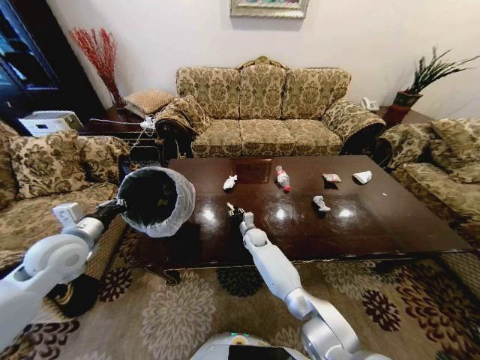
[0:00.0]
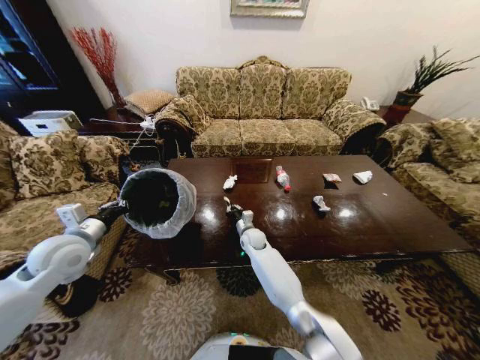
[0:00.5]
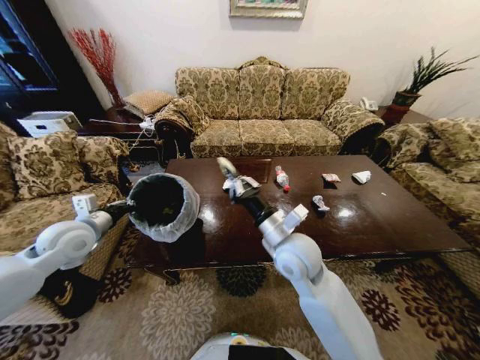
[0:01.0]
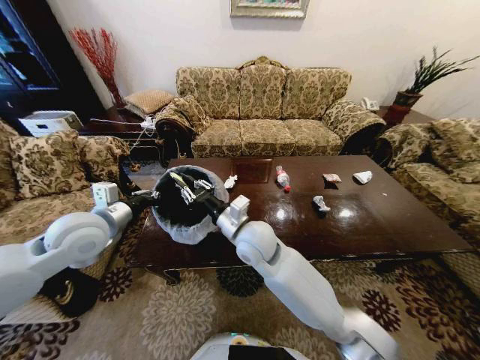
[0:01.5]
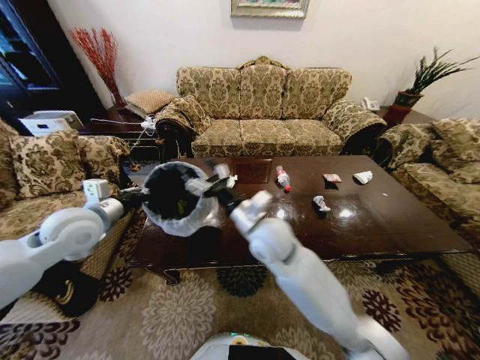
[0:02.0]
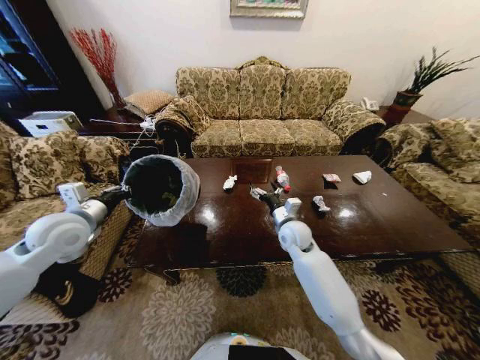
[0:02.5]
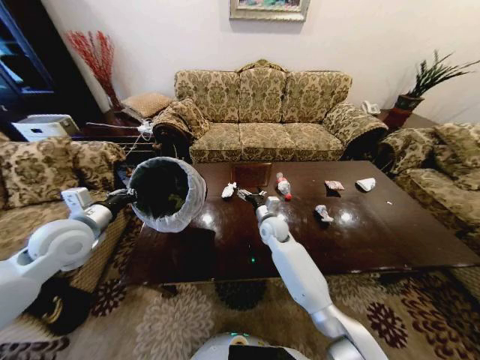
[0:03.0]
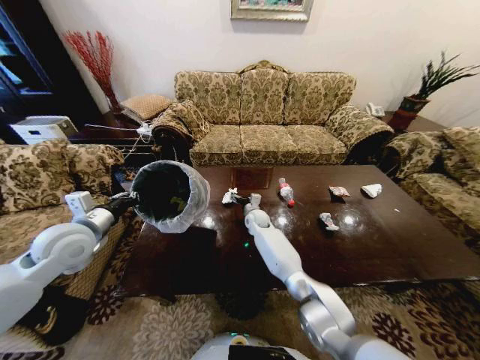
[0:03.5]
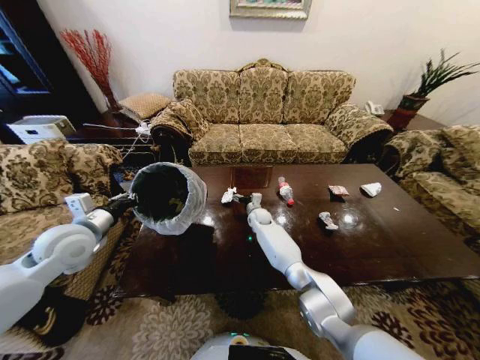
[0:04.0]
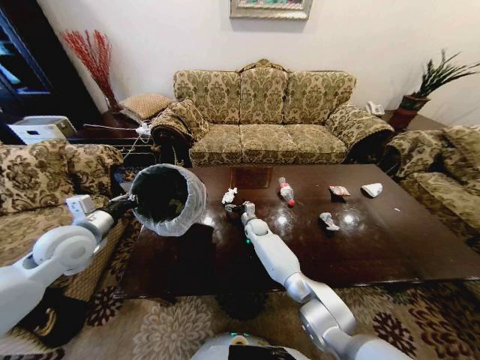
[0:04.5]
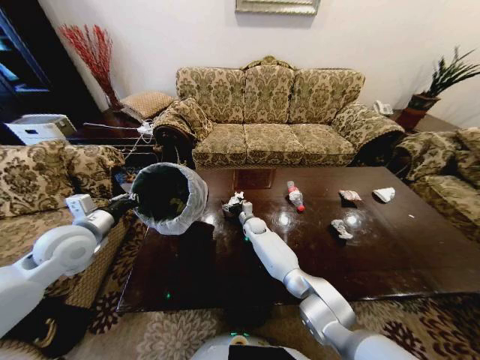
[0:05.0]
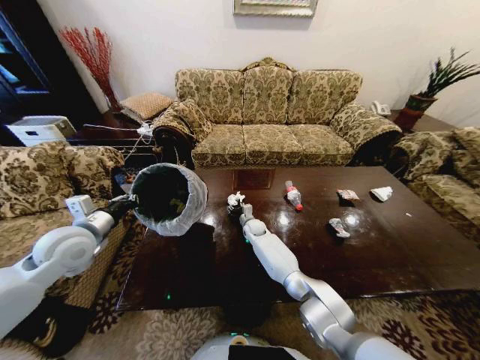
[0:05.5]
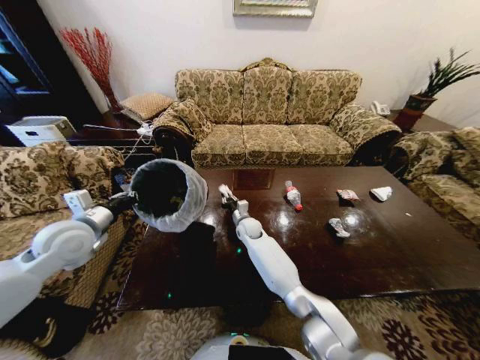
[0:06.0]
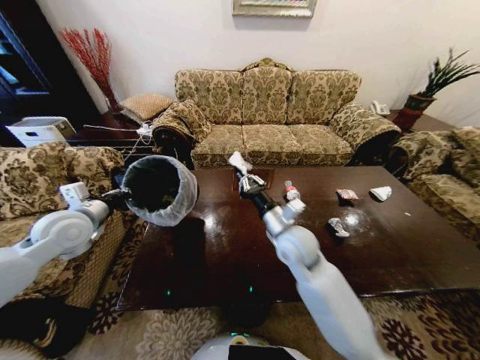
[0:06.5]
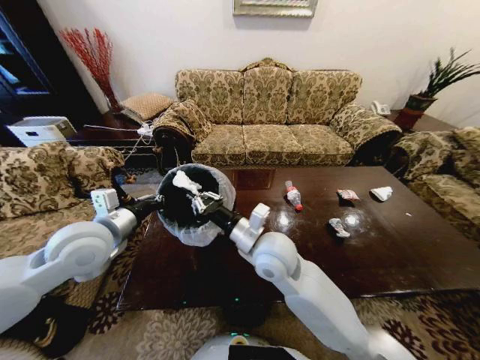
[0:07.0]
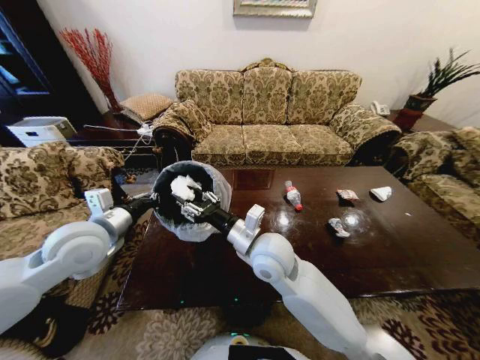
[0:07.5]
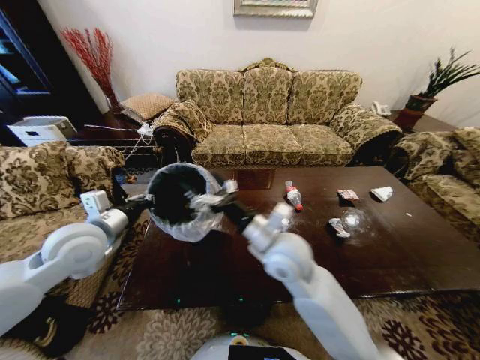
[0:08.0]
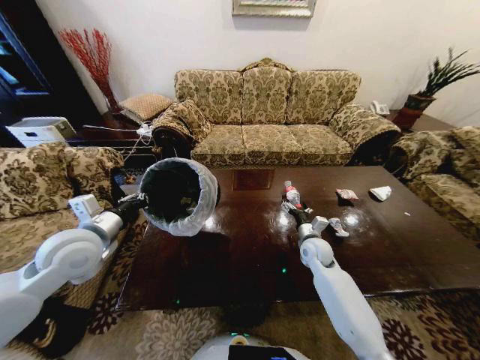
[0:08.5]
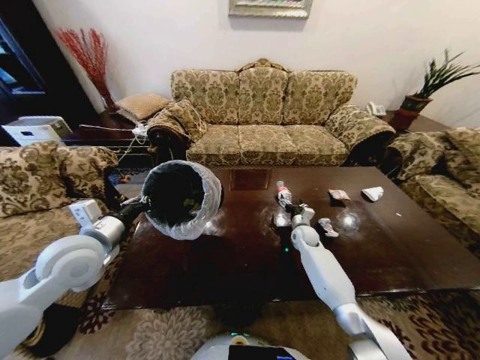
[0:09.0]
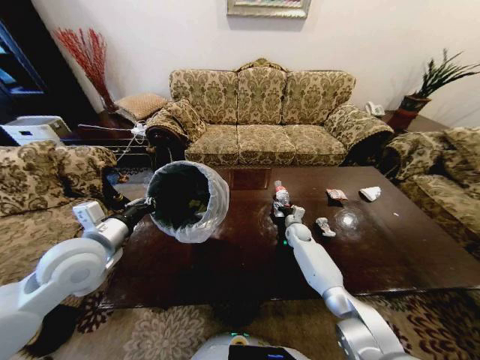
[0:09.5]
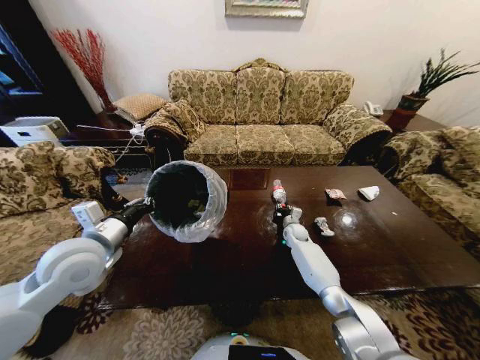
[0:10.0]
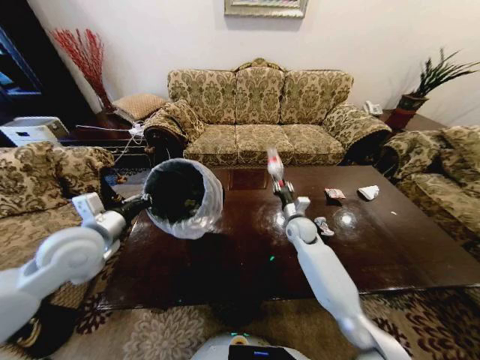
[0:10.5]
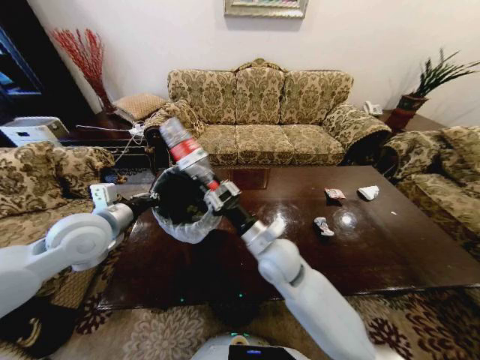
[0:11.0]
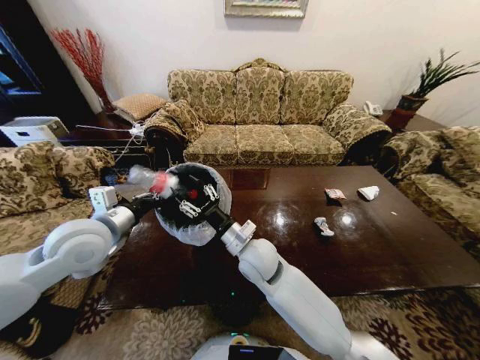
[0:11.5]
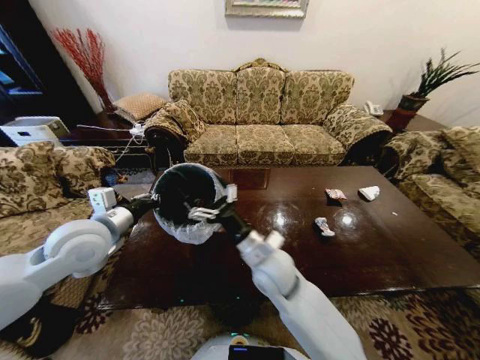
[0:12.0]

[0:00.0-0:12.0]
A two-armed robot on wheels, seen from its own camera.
Task of the whole recording: Move to the front of the table and place the trash on the table into the trash bin.
0:00.0 to 0:02.0: The right gripper heads upward and backward, covering about 35 cm, and opens up. Meanwhile the left gripper moves upward and to the right, about 10 cm.
0:02.0 to 0:04.0: The right gripper goes approximately 35 cm forward and downward; the left gripper changes place by some 5 cm.
0:04.0 to 0:06.0: The right gripper heads backward and to the left, covering some 10 cm, and closes.
0:06.0 to 0:08.0: The right gripper shifts roughly 30 cm backward and upward, and opens up; the left gripper heads to the right, covering roughly 5 cm.
0:08.0 to 0:10.0: The right gripper is displaced downward, forward and to the right by approximately 40 cm, and closes its fingers.
0:10.0 to 0:12.0: The right gripper travels backward, upward and to the left by roughly 35 cm, and opens up.

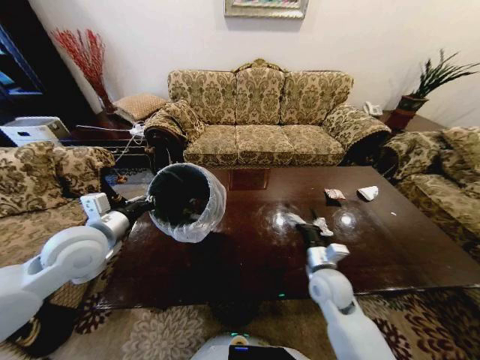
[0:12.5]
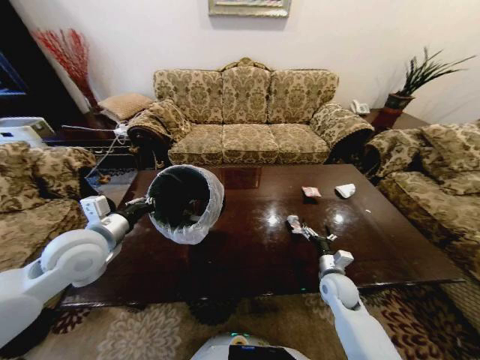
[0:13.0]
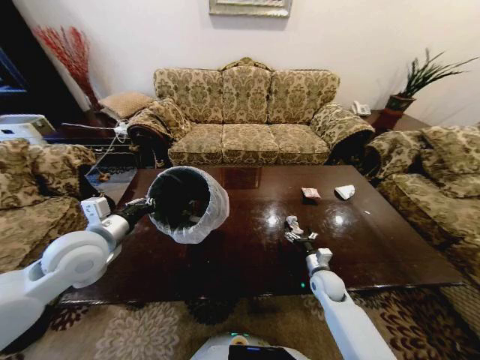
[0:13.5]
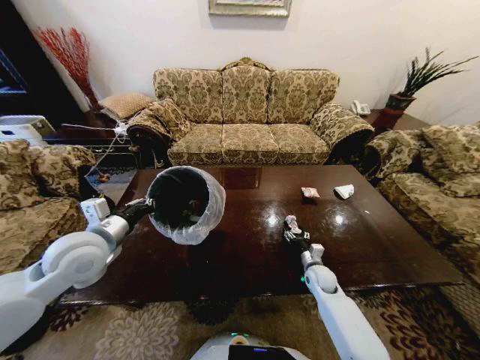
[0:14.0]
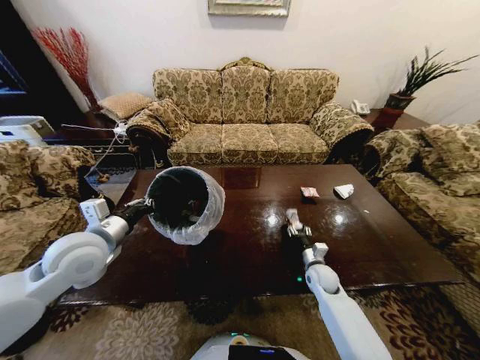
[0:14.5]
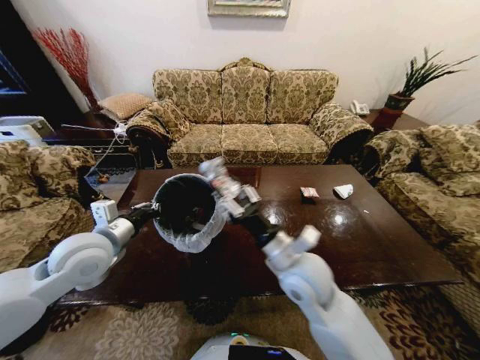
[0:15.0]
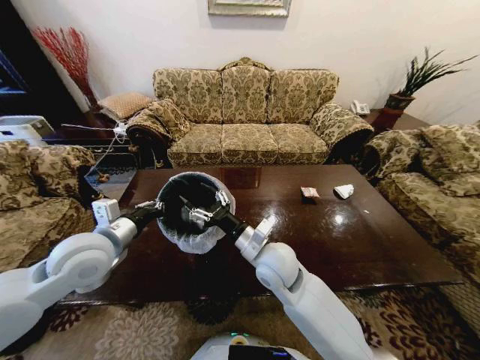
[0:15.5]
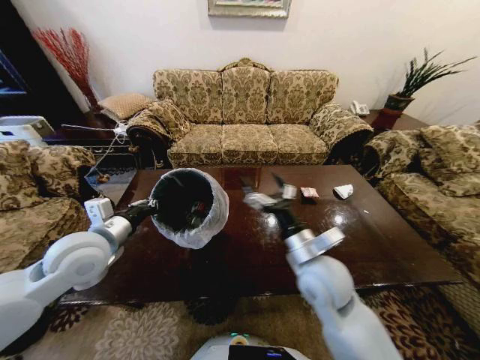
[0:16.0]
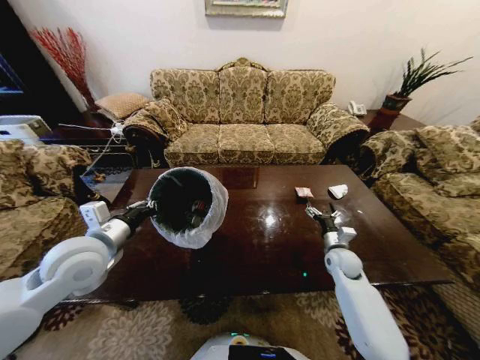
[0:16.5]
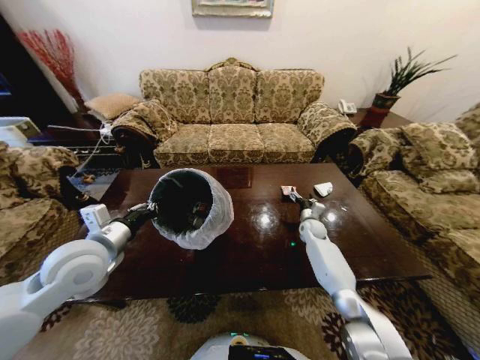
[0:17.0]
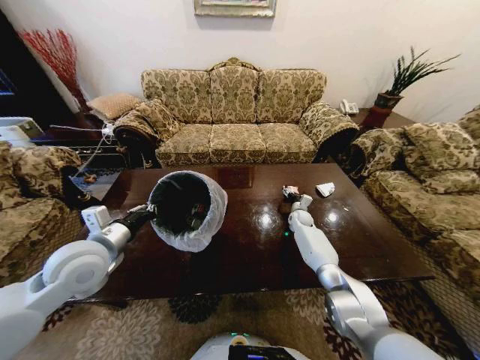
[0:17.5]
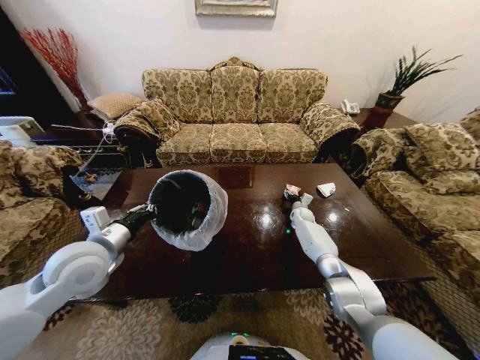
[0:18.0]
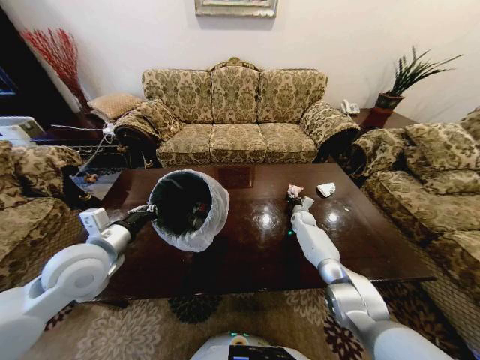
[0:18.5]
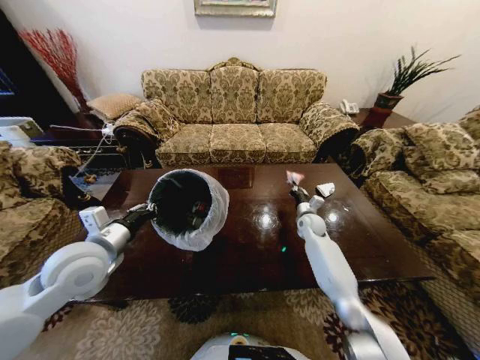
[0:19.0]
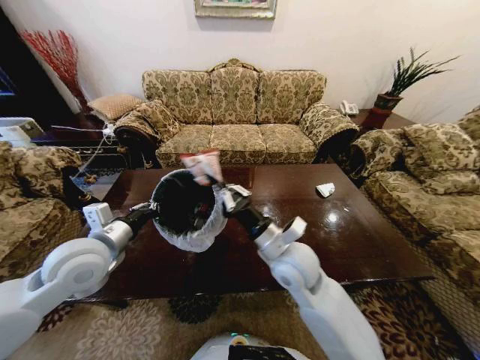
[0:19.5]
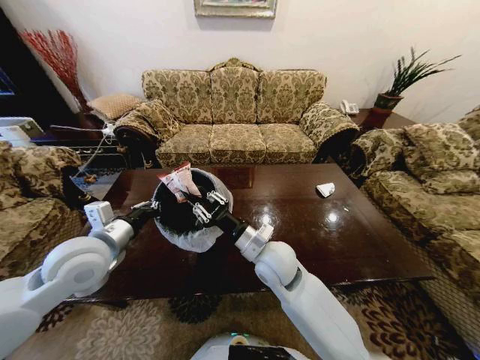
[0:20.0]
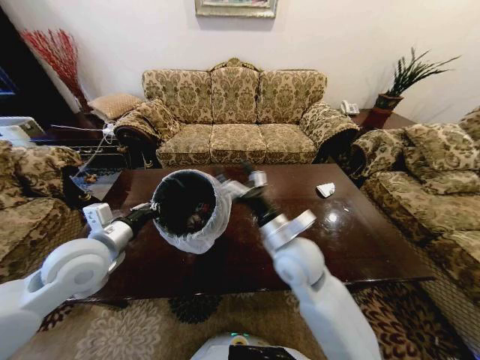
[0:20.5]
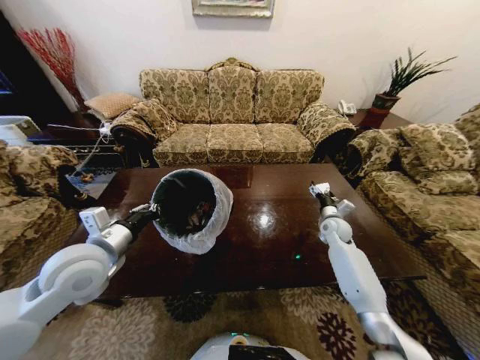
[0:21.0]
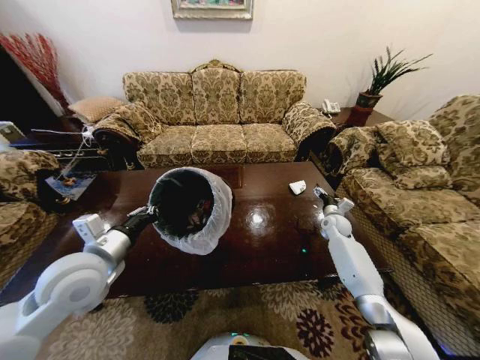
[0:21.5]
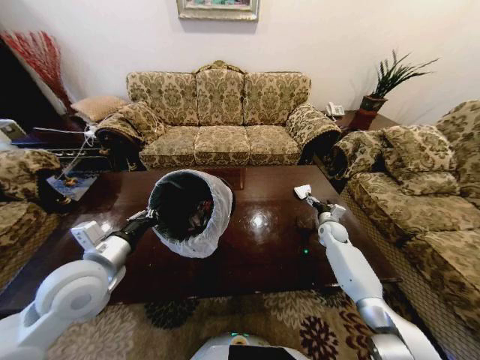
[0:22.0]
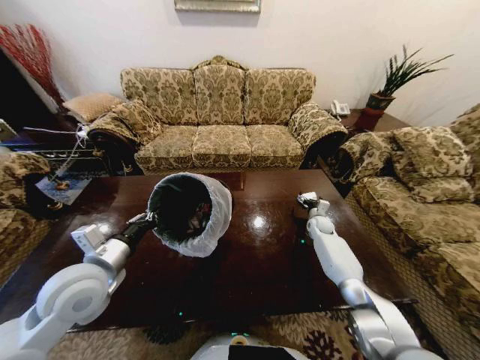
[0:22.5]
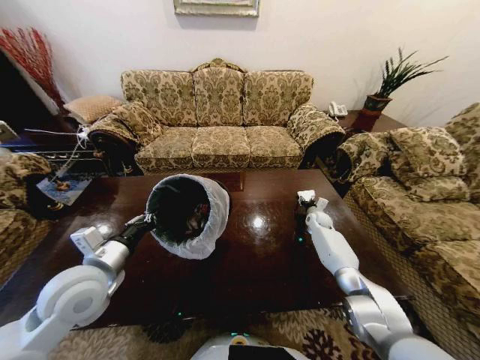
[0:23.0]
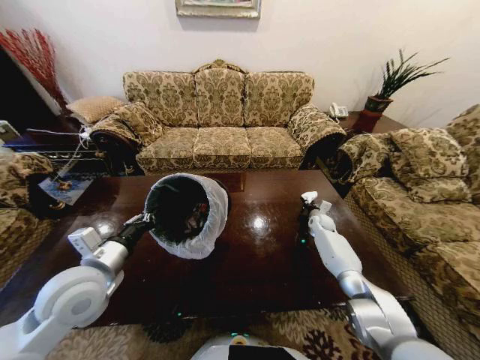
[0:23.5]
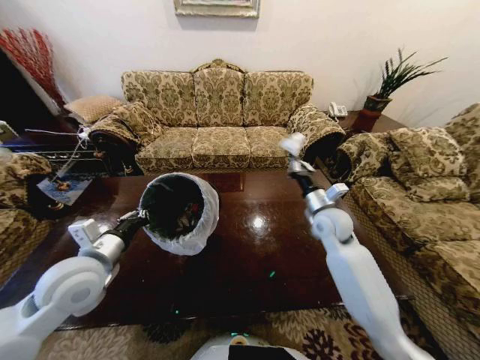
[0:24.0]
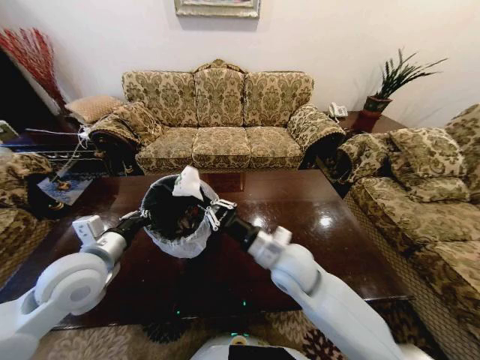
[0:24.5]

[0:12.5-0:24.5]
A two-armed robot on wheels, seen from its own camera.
Task of the whole recording: Move to the front of the table and place the trash on the table into the trash bin.
0:12.5 to 0:14.5: The right gripper is displaced downward, forward and to the right by roughly 15 cm, and closes its fingers.
0:14.5 to 0:16.5: The right gripper goes roughly 5 cm upward, travels to the left and back again, about 20 cm each way, and opens.
0:16.5 to 0:18.5: The right gripper is displaced forward by roughly 20 cm, and closes its fingers.
0:18.5 to 0:20.5: The right gripper shifts roughly 40 cm backward, upward and to the left, and opens its fingers.
0:20.5 to 0:22.5: The right gripper travels forward, to the right and downward by some 40 cm.
0:22.5 to 0:24.5: The right gripper travels backward, to the left and upward by approximately 40 cm, and closes.

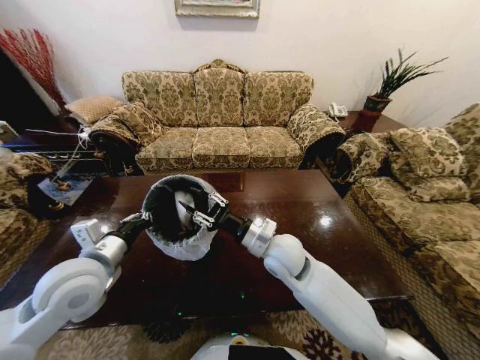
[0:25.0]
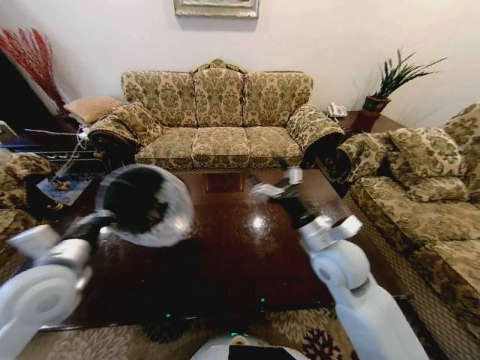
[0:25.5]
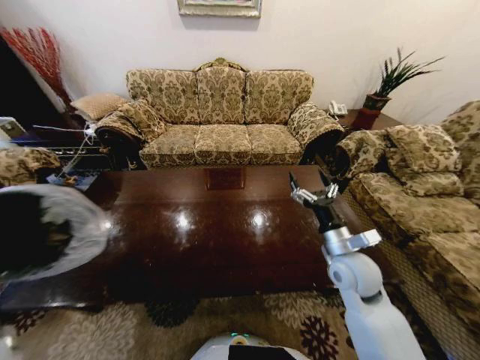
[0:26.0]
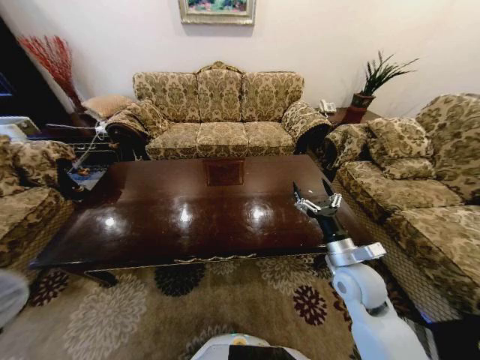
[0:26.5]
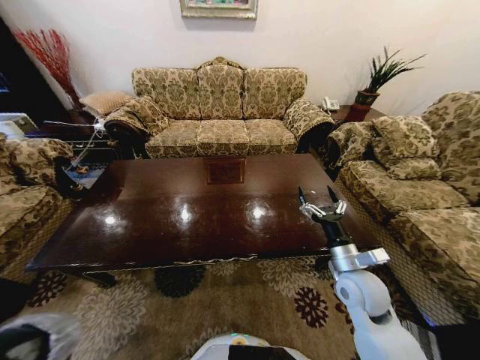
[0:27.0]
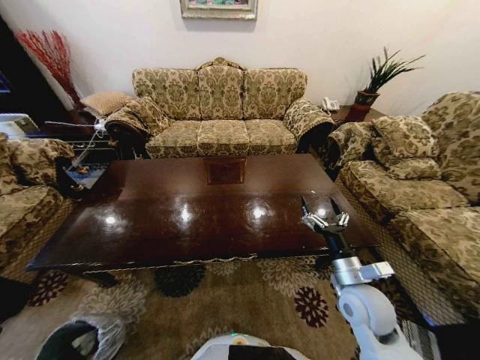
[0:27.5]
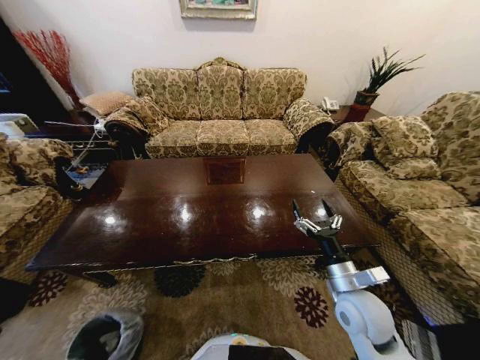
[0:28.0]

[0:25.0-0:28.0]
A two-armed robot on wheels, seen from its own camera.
Task of the whole recording: Move to the front of the table and place the trash on the table into the trash bin.
0:25.0 to 0:26.5: The left gripper shifts approximately 30 cm to the left, backward and downward, while the right gripper travels to the right by approximately 20 cm, and opens its fingers.
0:26.5 to 0:28.0: The right gripper moves backward, roughly 5 cm, while the left gripper heads downward, covering some 30 cm.
